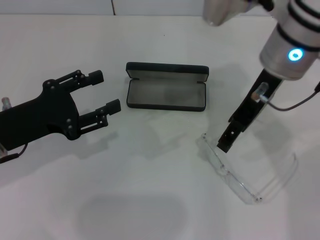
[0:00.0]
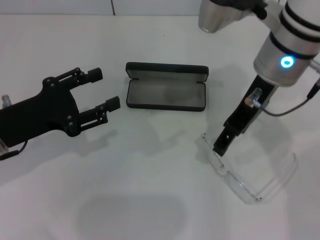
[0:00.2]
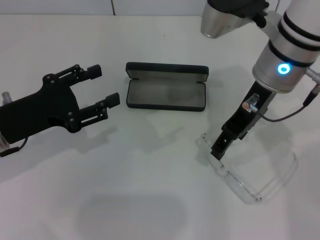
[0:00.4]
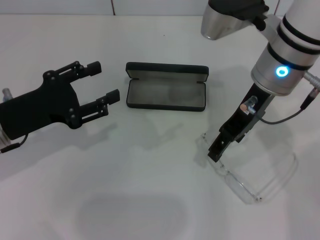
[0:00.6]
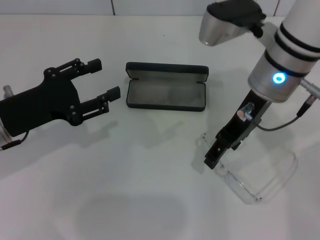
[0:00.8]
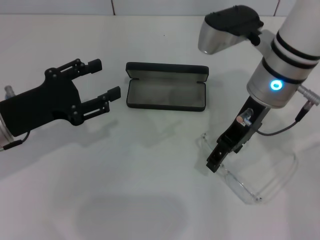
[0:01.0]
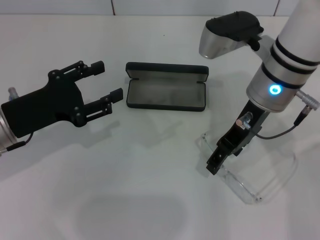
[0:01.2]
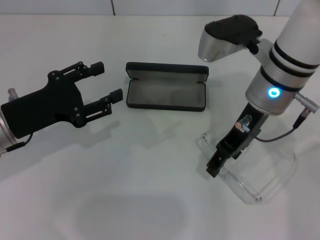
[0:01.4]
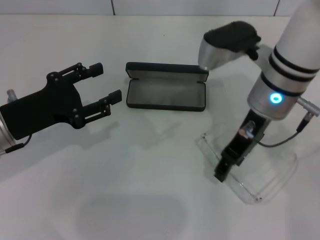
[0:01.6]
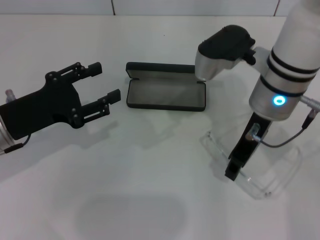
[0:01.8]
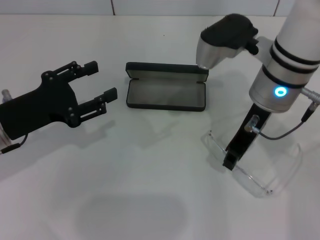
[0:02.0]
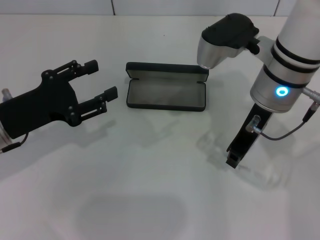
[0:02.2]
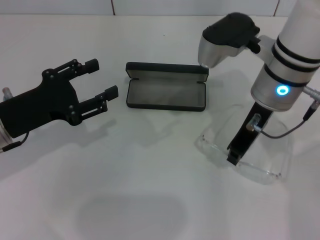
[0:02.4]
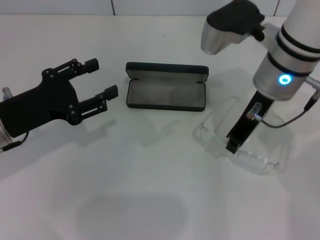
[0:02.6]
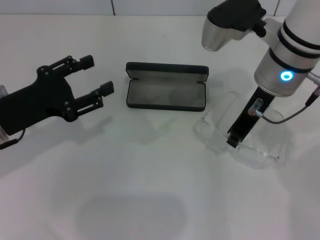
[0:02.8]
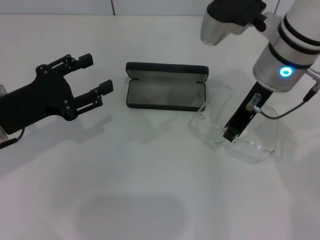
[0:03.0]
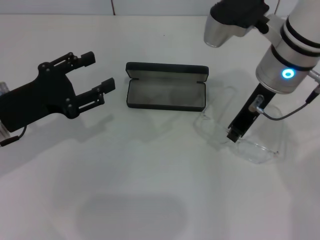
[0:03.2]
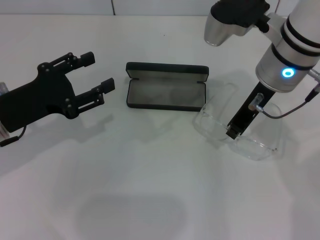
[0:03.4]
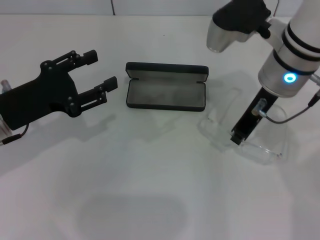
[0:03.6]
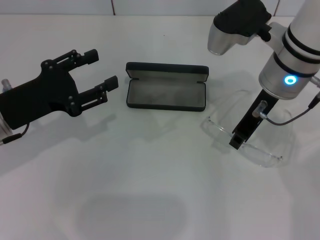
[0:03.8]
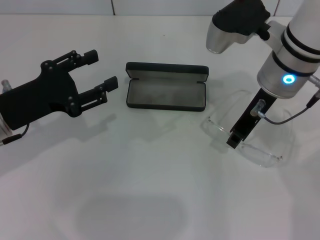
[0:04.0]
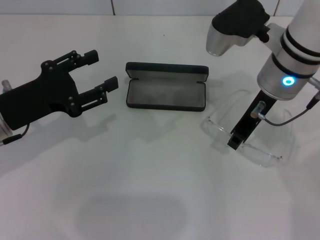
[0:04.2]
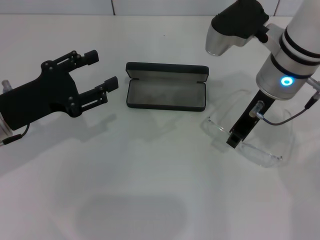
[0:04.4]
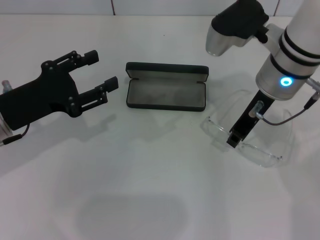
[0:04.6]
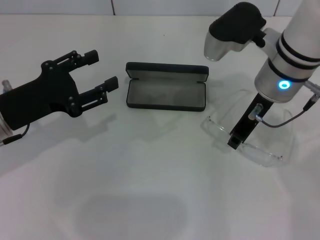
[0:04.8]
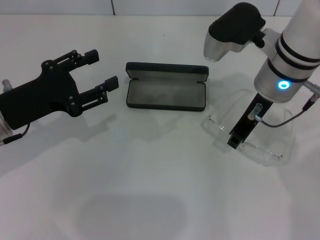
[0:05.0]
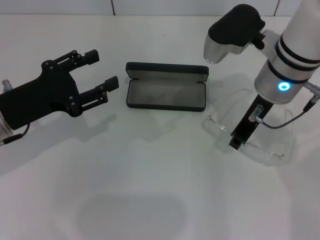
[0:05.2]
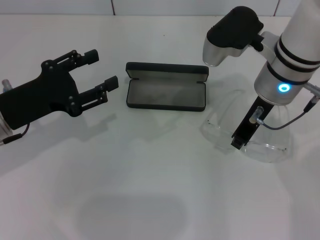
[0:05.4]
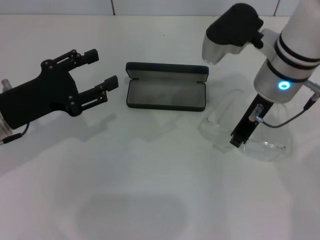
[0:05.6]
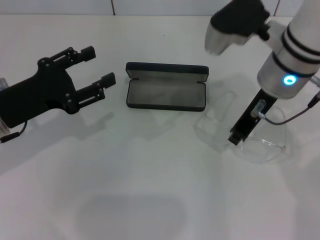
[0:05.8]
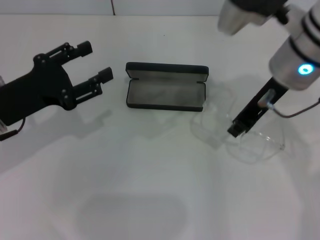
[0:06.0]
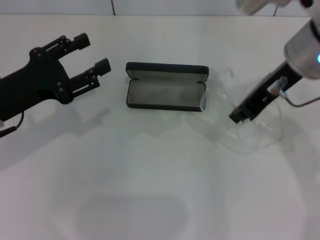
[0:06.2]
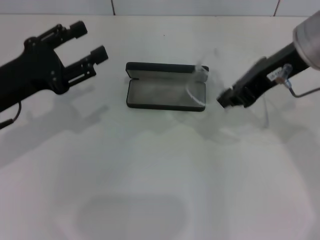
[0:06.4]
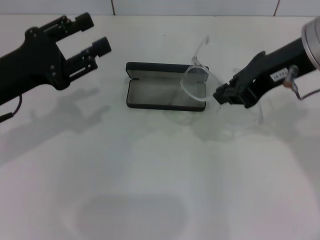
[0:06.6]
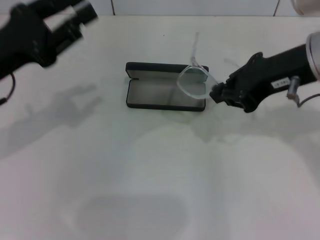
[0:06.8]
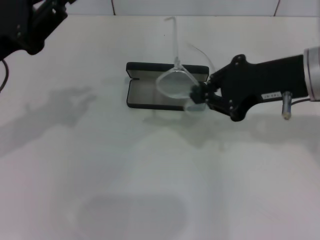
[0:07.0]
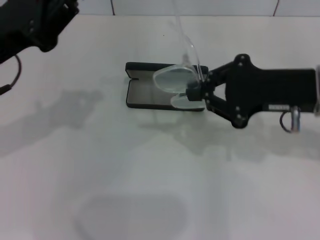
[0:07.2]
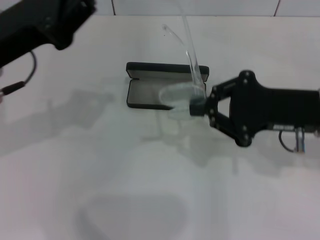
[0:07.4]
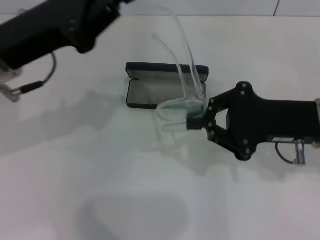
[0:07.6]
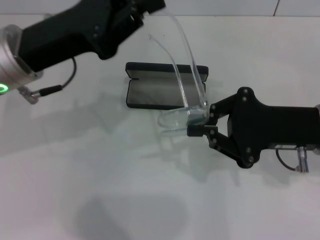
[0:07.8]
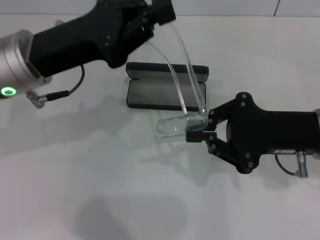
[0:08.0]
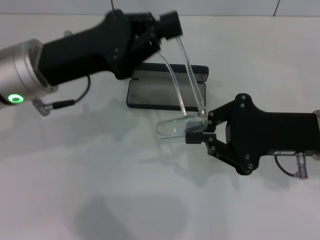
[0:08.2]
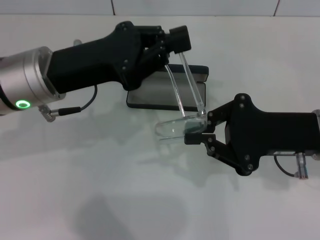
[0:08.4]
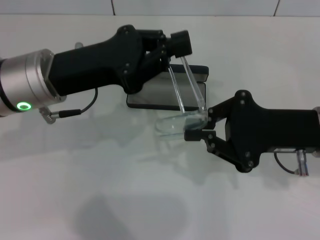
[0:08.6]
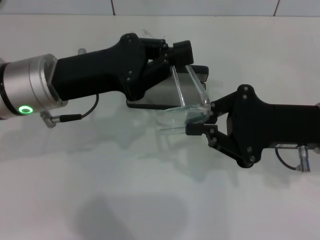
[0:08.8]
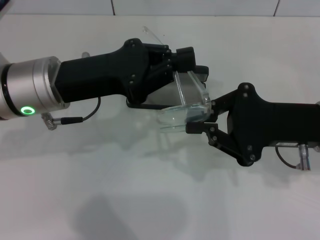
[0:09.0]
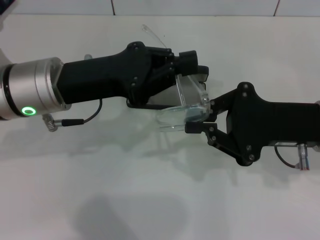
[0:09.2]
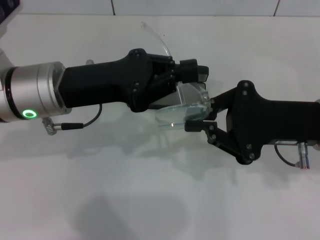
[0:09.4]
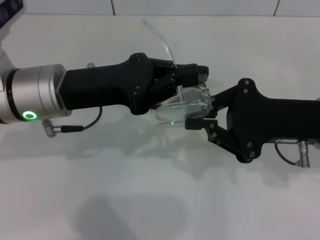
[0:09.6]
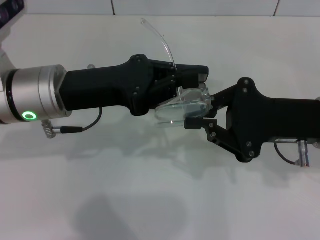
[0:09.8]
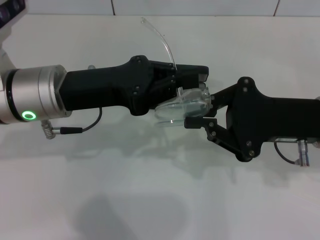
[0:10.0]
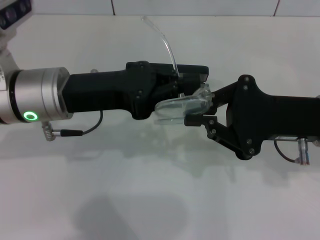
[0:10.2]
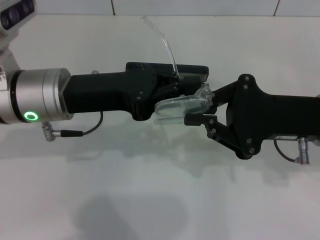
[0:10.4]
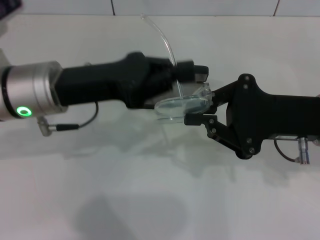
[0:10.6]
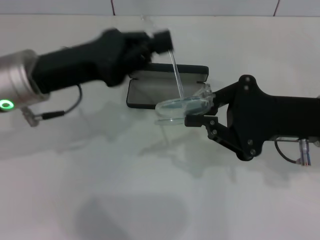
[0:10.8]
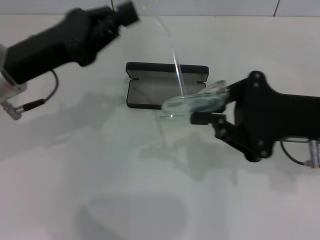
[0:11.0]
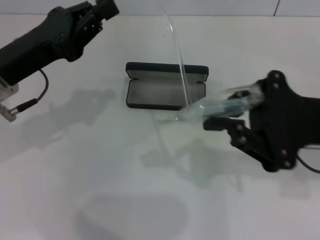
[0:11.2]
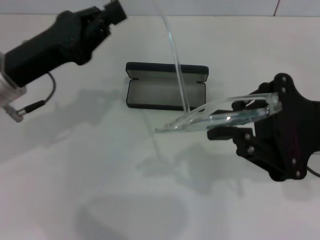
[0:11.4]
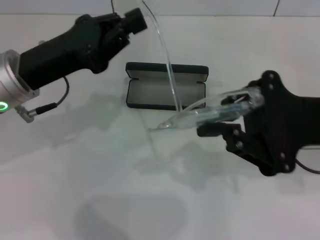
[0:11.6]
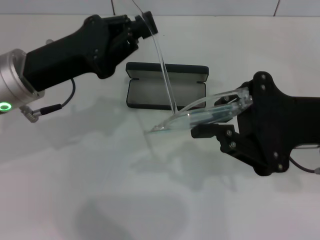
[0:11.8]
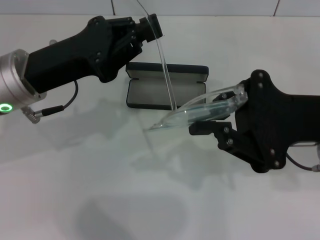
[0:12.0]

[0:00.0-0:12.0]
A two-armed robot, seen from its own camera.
Step, 0:00.0 to 0:02.0: Grab the eyeglass frame with your right hand.
0:00.0 to 0:01.6: The right gripper heads downward, covering roughly 5 cm.
0:01.6 to 0:03.0: The right gripper closes its fingers.
0:03.0 to 0:06.0: The grippers make only small movements.
0:06.0 to 0:07.6: The left gripper is displaced upward by about 10 cm, and closes up. Meanwhile the right gripper is displaced downward, to the right and backward by approximately 10 cm.
0:09.0 to 0:10.4: The grippers stay close to where they were, moving slightly.

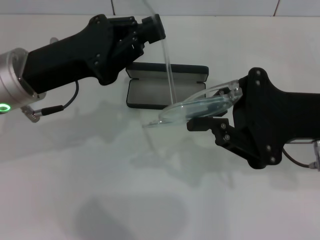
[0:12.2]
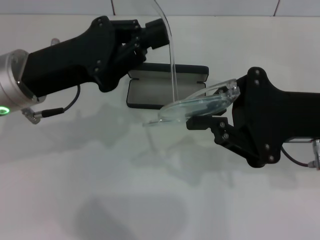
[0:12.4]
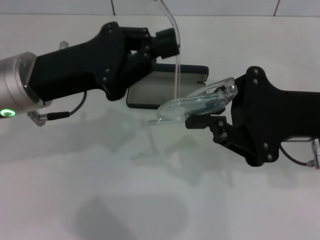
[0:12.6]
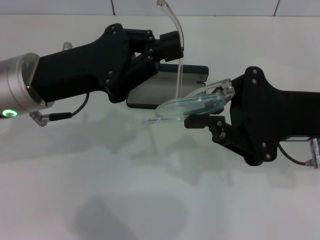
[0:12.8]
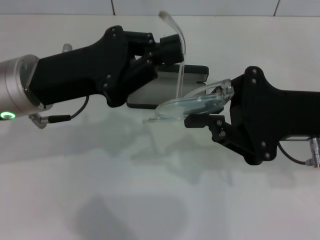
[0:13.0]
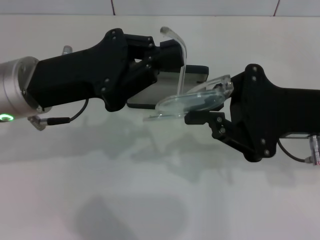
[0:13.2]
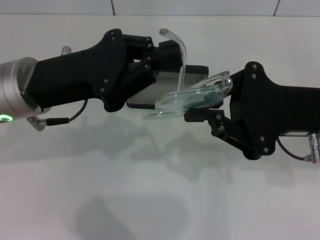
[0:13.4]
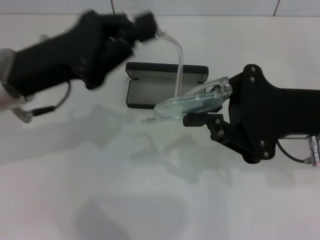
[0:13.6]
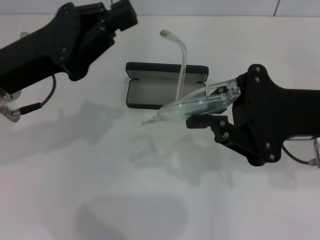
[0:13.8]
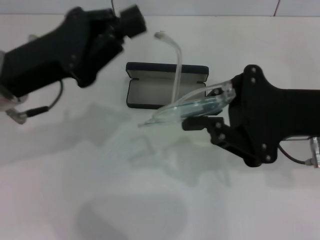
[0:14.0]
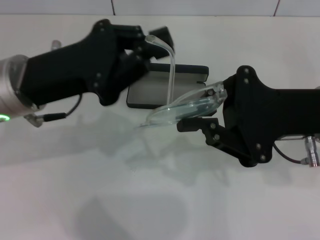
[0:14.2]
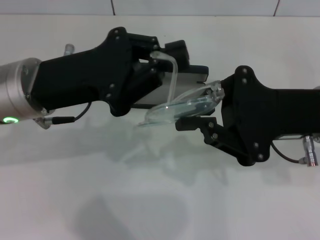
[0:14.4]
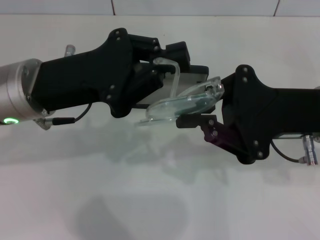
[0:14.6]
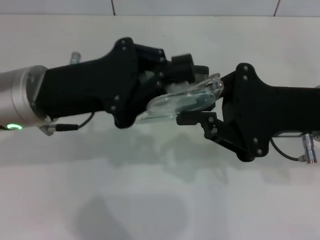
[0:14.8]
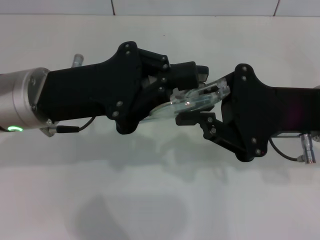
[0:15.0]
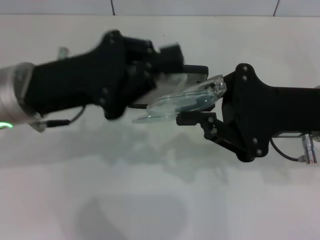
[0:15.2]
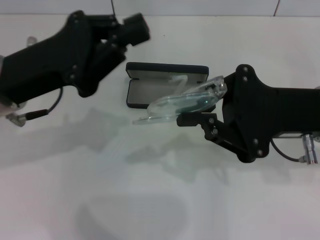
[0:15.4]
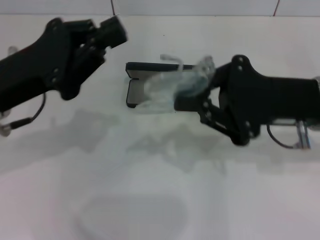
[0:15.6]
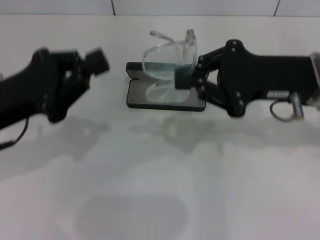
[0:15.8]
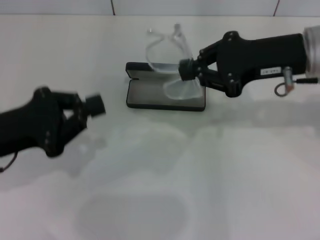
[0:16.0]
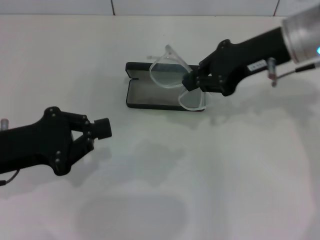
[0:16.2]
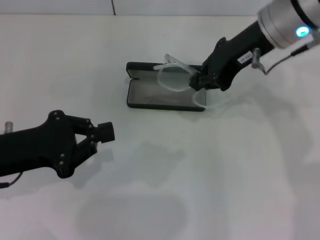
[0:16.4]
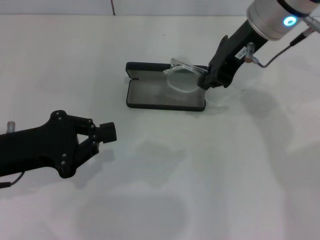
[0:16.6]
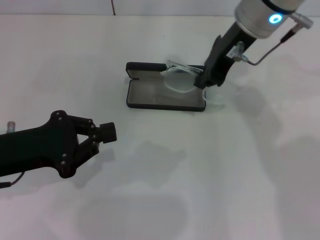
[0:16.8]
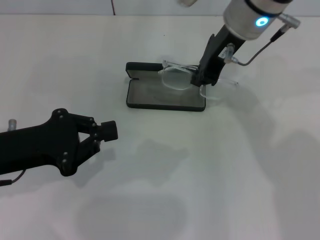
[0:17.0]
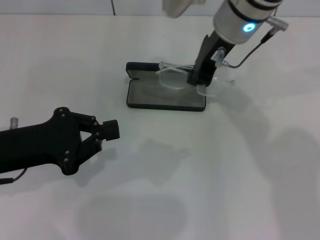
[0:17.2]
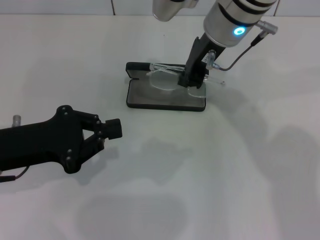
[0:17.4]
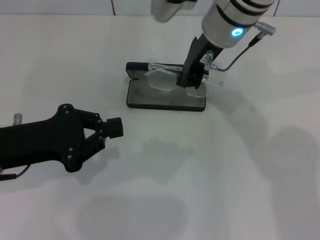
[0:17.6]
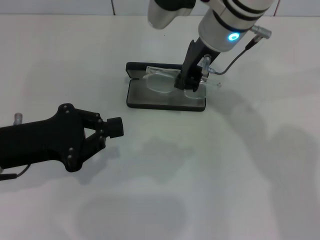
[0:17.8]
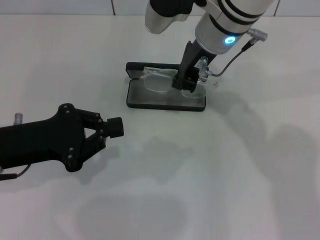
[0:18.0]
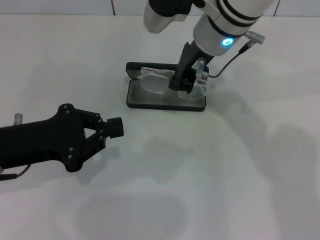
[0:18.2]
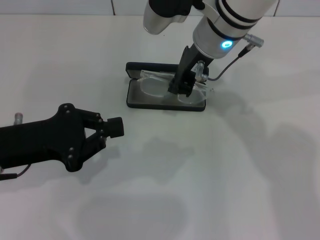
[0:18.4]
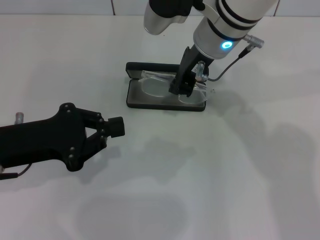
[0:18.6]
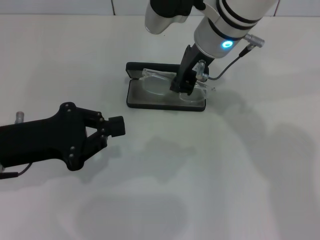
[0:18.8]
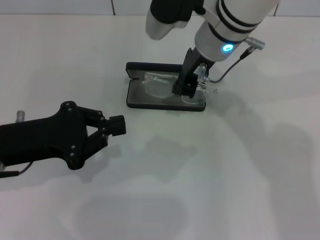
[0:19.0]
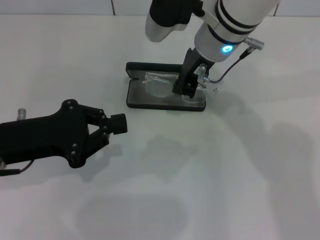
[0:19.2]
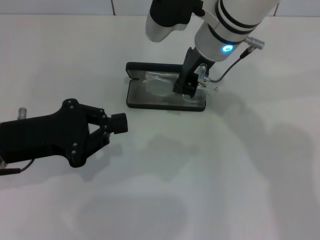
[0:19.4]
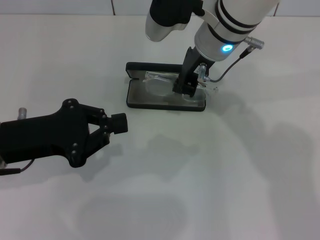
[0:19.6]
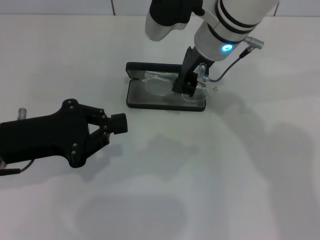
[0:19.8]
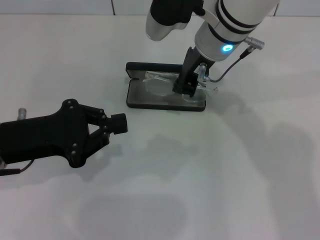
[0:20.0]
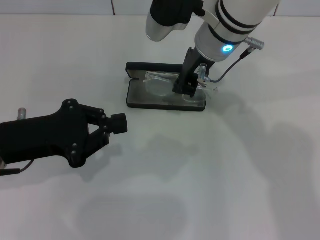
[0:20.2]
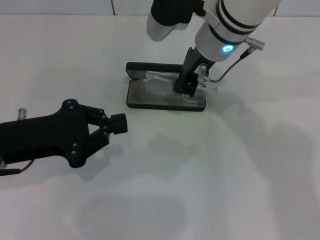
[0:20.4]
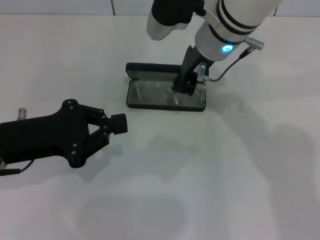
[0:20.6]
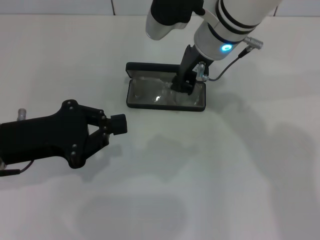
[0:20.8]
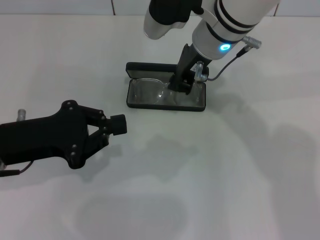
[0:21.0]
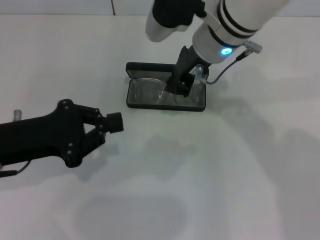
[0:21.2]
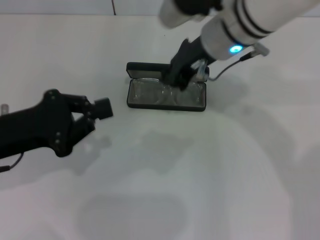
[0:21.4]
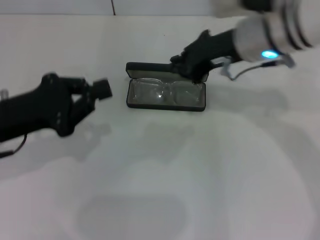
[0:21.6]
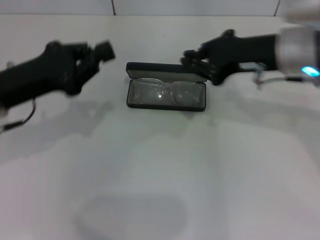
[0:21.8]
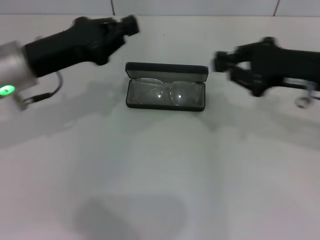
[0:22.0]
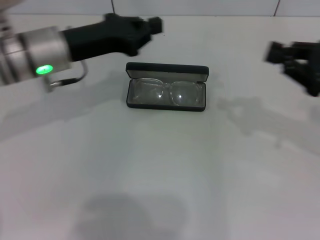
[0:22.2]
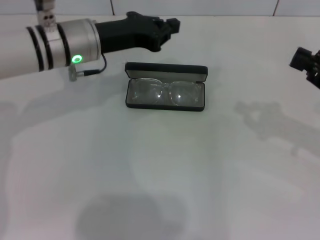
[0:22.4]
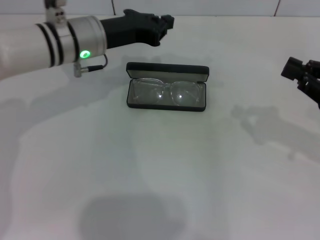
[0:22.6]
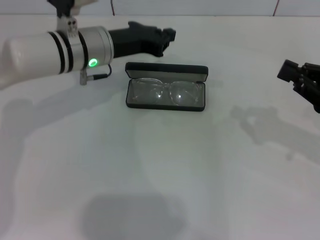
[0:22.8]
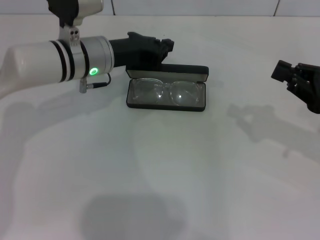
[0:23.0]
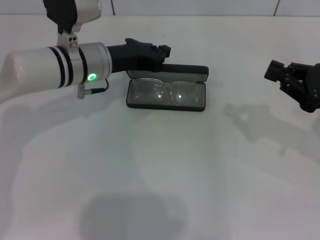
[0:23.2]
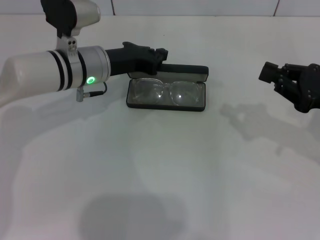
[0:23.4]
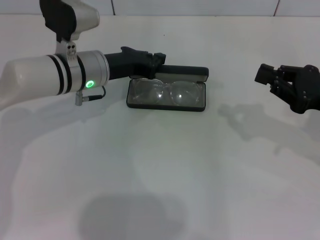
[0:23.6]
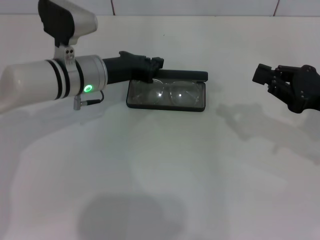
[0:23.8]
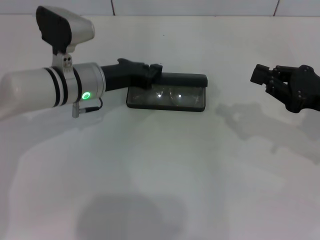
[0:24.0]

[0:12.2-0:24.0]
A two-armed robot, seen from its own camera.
Step, 0:12.2 to 0:15.0: Fold the frame with your left hand.
Step, 0:15.2 to 0:21.2: Put the glasses into the case with your right hand.
0:12.2 to 0:15.2: There are only small adjustments of the grippers.
0:15.2 to 0:16.6: The right gripper shifts approximately 15 cm forward, upward and to the left, while the left gripper moves to the left and downward, some 10 cm.
0:16.6 to 0:18.2: The right gripper moves to the left, roughly 5 cm.
0:18.2 to 0:19.6: Both grippers stay about where they are.
0:19.6 to 0:21.0: Both grippers stay about where they are.
0:21.0 to 0:22.6: The right gripper shifts approximately 30 cm to the right and backward; the left gripper heads forward and to the right, covering approximately 20 cm.
0:22.6 to 0:24.0: The left gripper travels downward by some 5 cm.
